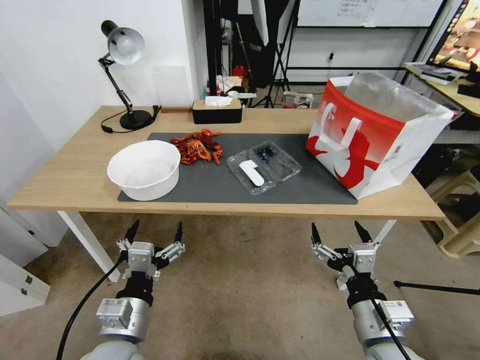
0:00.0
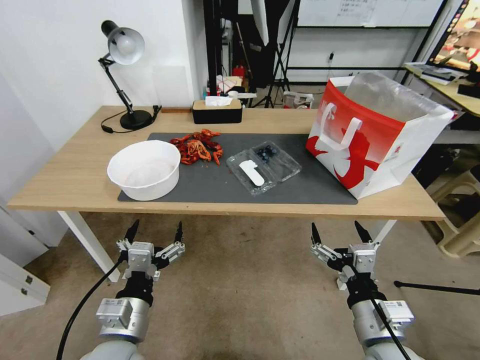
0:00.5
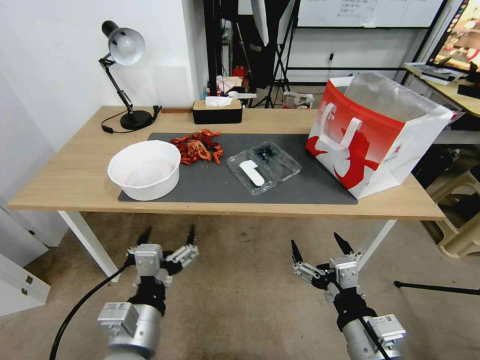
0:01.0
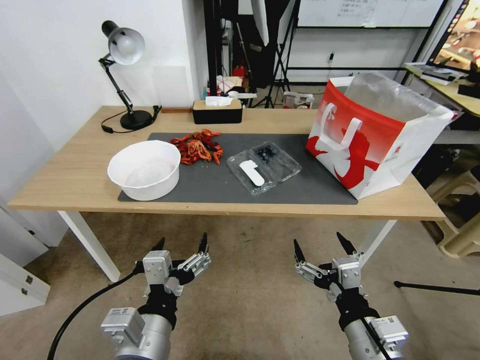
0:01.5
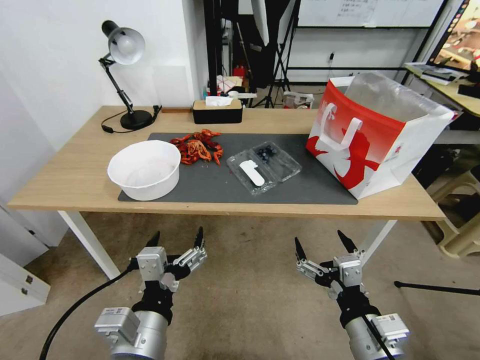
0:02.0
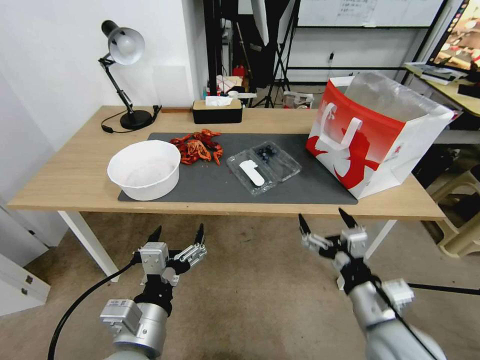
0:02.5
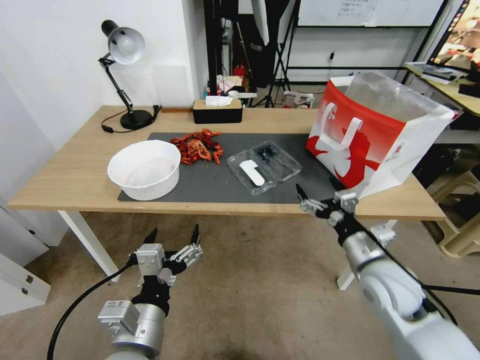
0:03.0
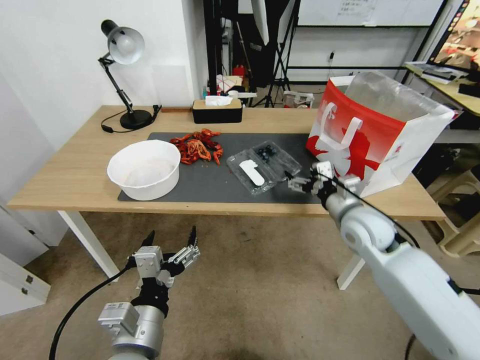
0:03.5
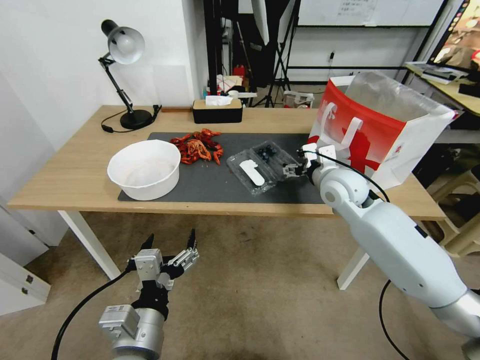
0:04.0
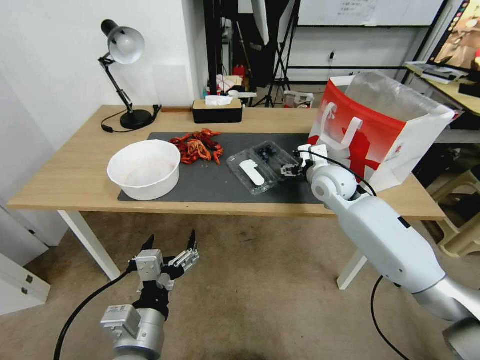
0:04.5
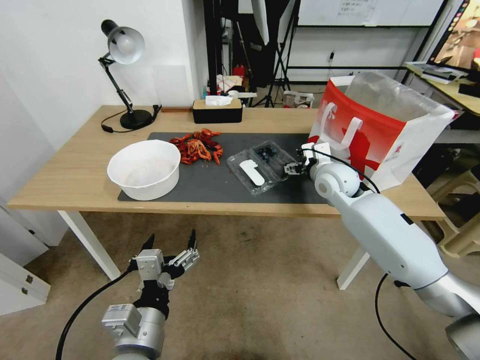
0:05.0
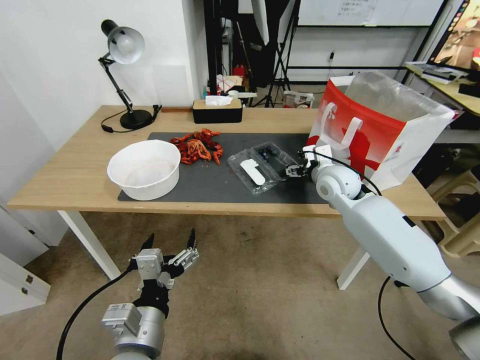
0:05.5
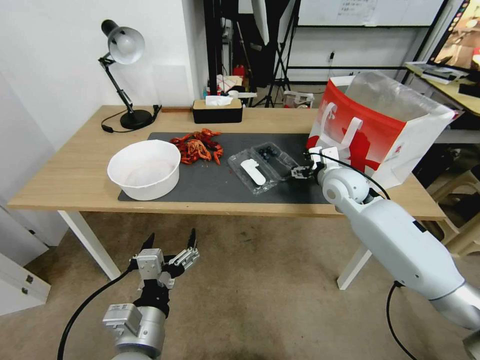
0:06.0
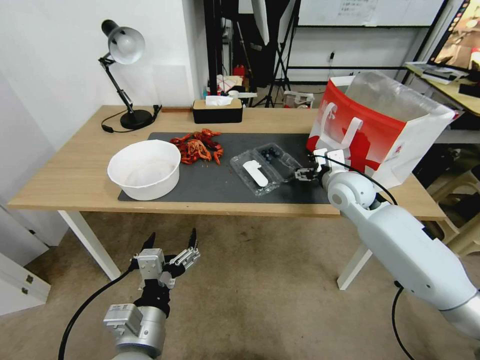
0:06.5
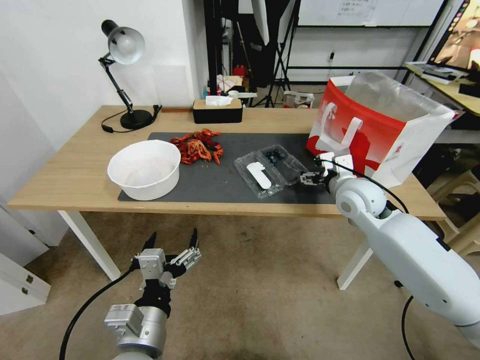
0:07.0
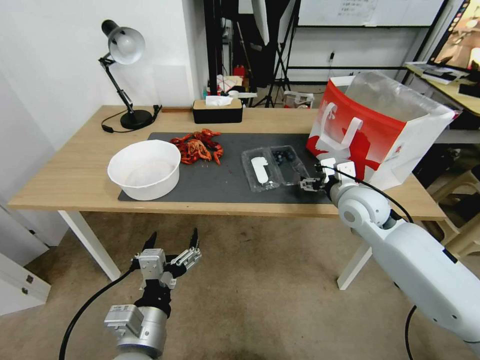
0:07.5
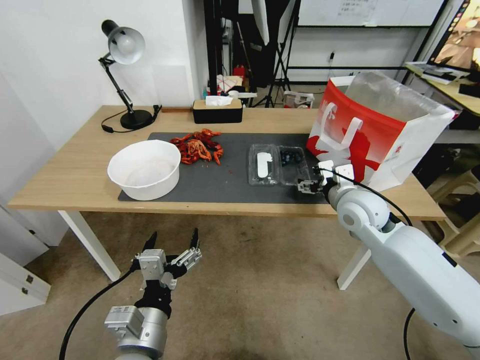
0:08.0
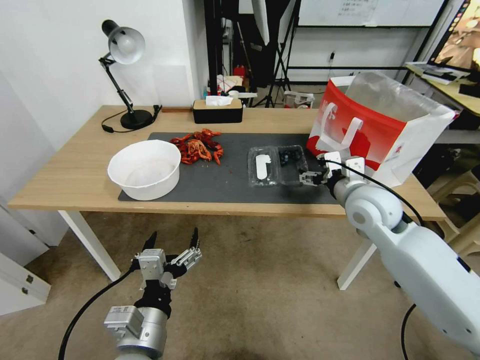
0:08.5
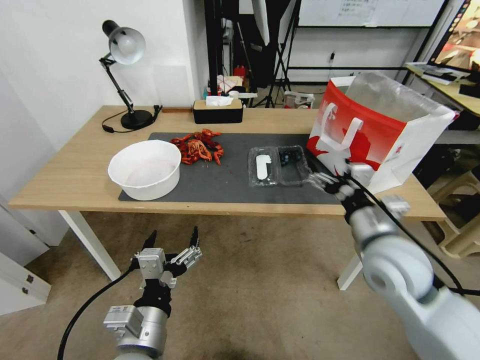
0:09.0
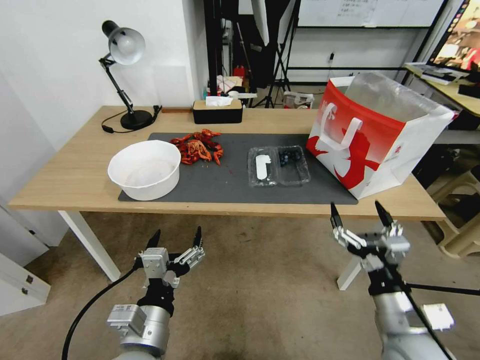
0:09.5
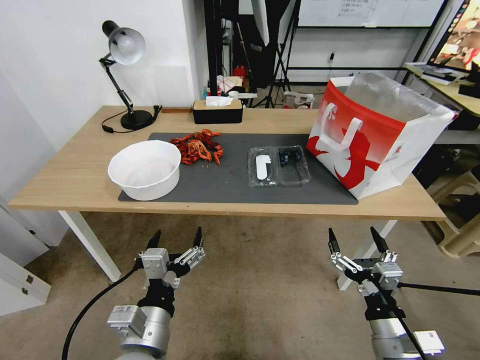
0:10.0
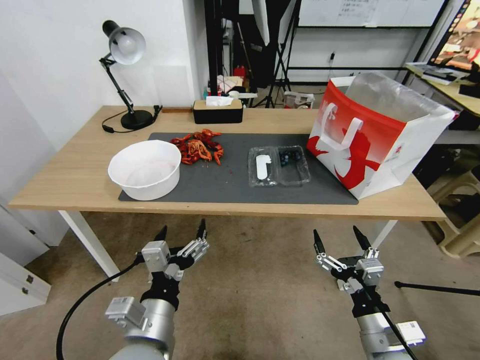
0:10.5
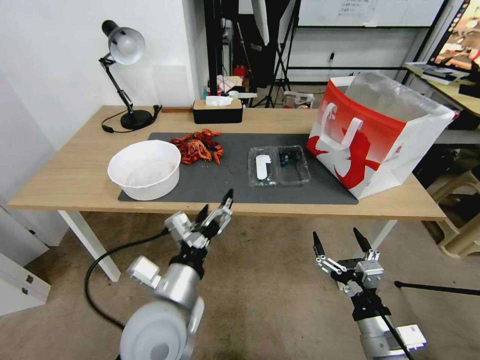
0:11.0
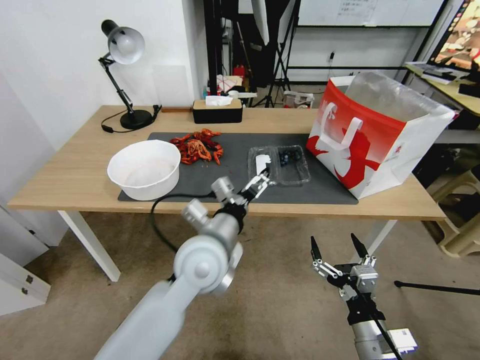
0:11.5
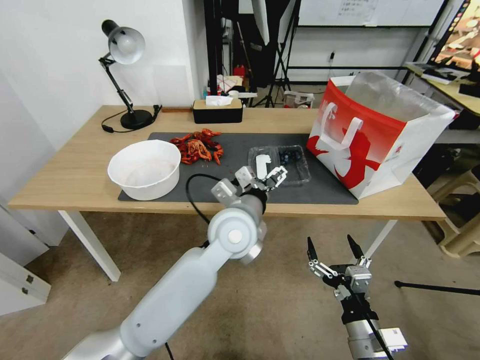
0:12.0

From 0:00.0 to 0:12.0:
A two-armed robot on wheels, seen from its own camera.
Task of the whole recording: Close the takeout container lid, then place the container into the takeout bag.
From 0:02.0 to 0:04.0: The right gripper goes about 35 cm forward.
From 0:04.0 to 0:06.0: The grippers stay close to where they were, moving slightly.
From 0:06.0 to 0:08.0: The right gripper goes about 10 cm backward.
From 0:08.0 to 0:10.0: The right gripper heads backward and downward, covering roughly 30 cm.
From 0:10.0 to 0:12.0: The left gripper goes approximately 25 cm forward and to the right.

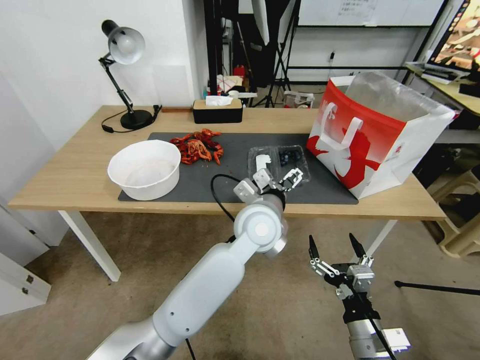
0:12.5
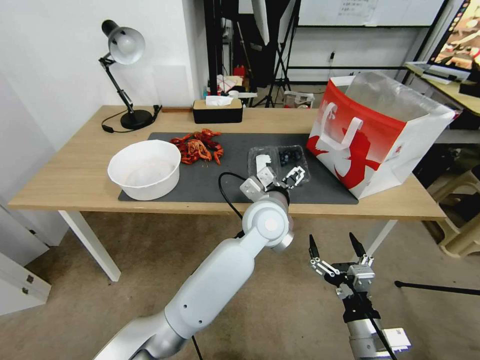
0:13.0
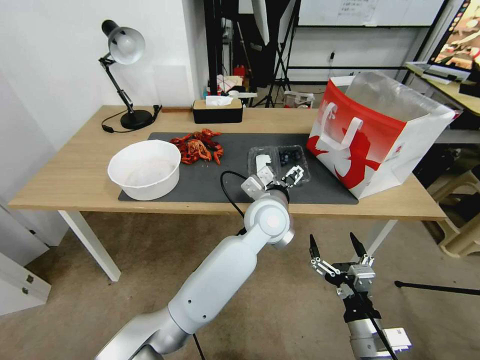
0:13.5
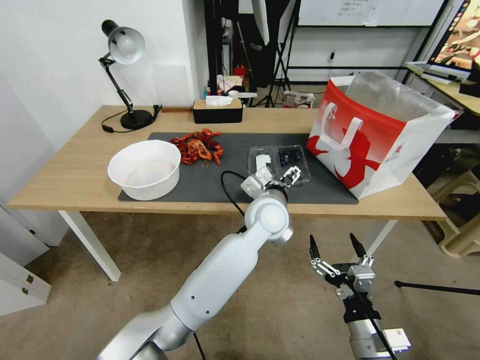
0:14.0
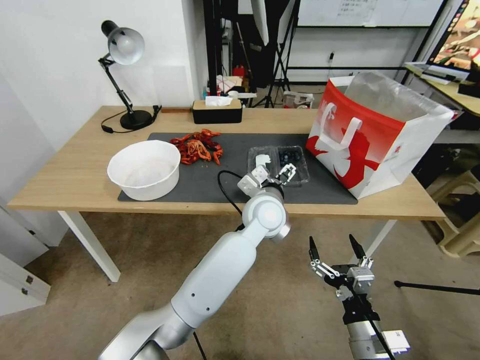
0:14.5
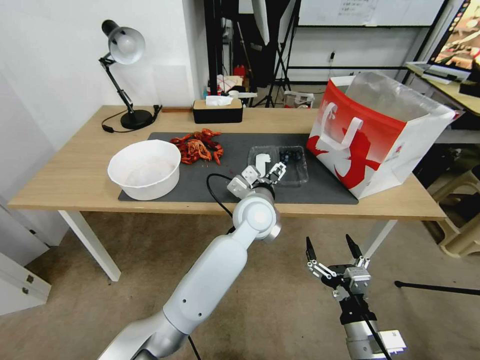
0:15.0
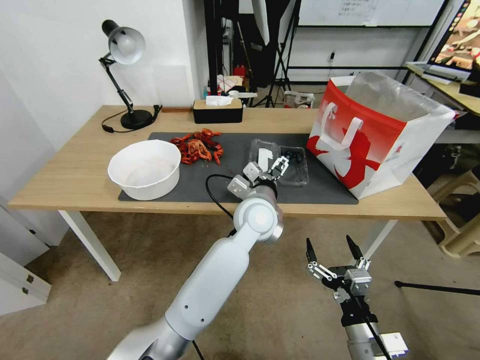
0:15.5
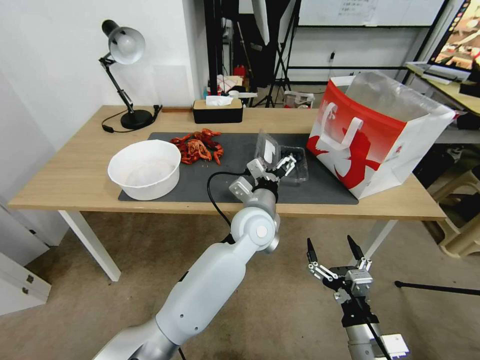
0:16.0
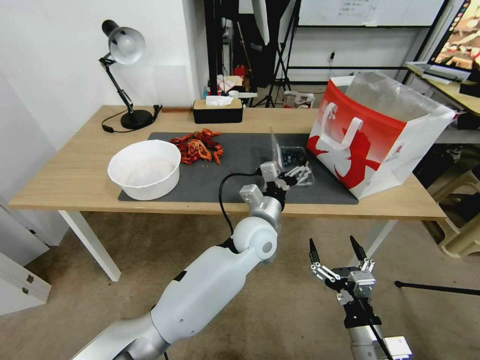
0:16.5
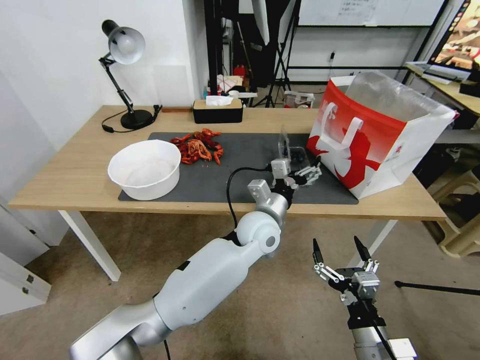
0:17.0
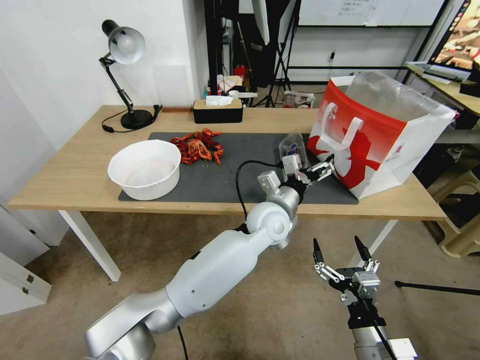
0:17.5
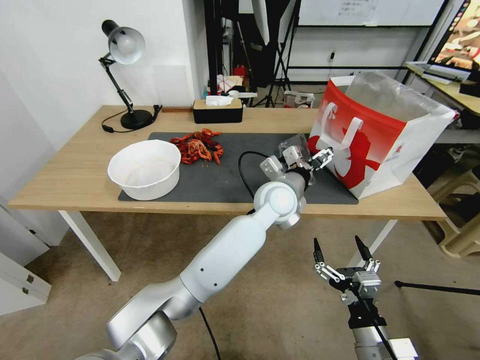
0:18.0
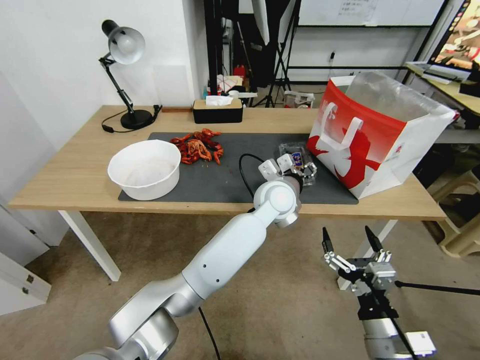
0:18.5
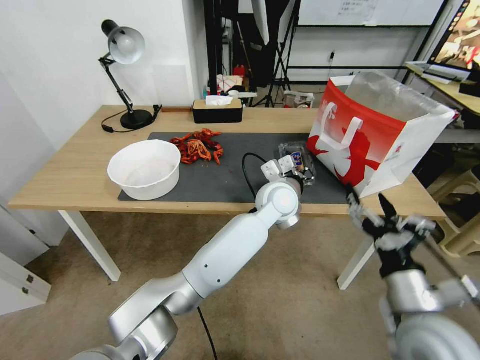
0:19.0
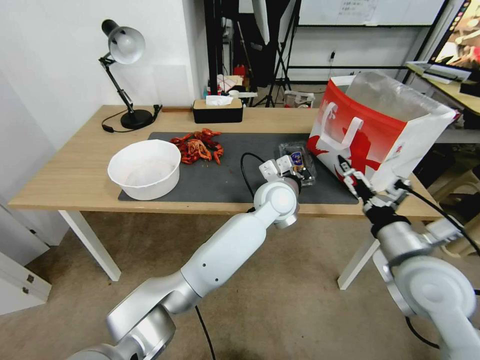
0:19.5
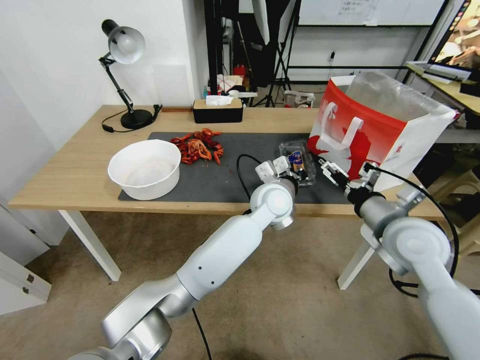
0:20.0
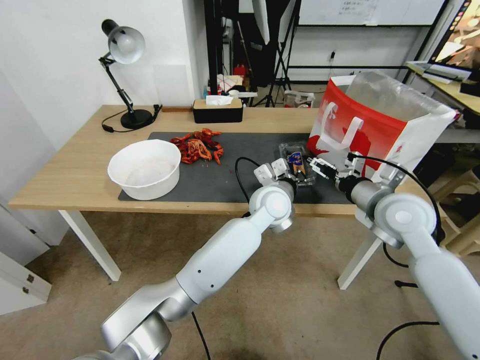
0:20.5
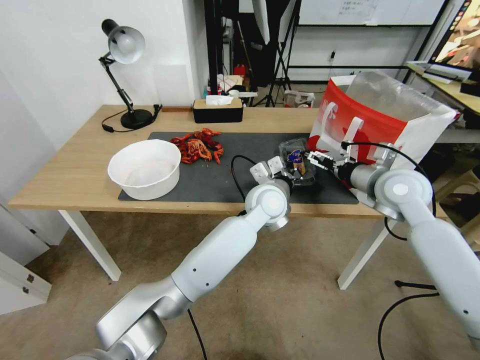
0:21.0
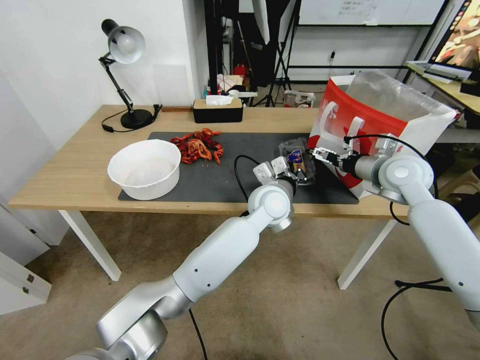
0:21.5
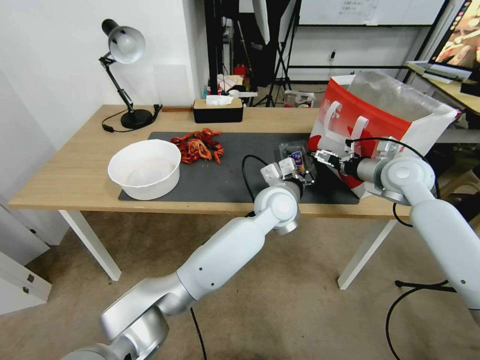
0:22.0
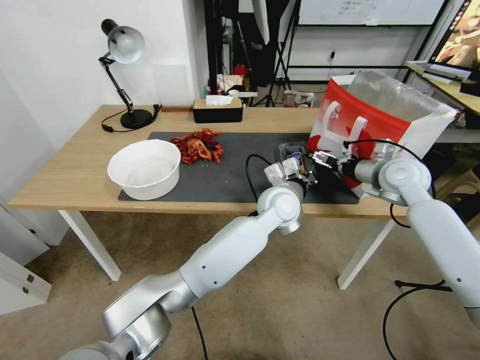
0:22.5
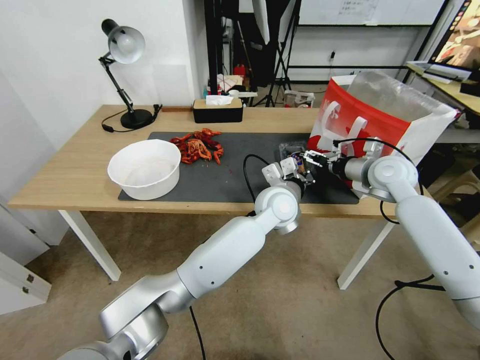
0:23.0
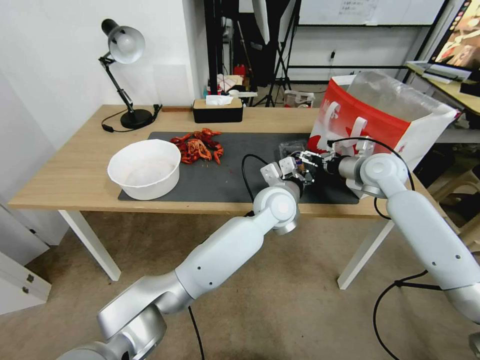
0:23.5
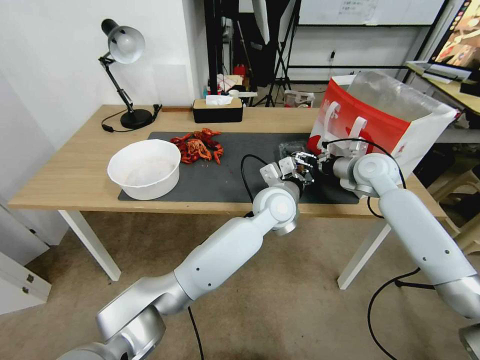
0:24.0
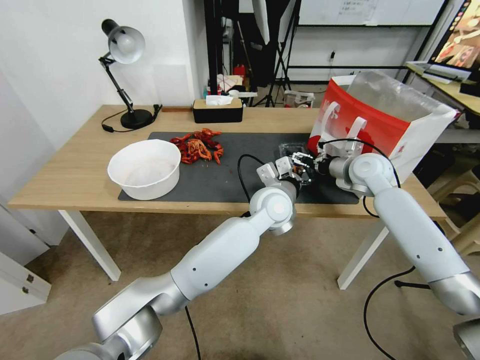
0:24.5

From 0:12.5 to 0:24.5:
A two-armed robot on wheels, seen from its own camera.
Task of the whole recording: Close the takeout container lid, then place the container into the takeout bag.
From 0:12.5 to 0:14.5: The left gripper moves roughly 5 cm.
From 0:14.5 to 0:16.5: The left gripper changes place by about 5 cm.
From 0:16.5 to 0:18.5: The left gripper moves forward and upward, approximately 10 cm, and closes.
From 0:18.5 to 0:20.5: The left gripper closes its fingers. The right gripper goes approximately 30 cm forward and upward.
From 0:20.5 to 0:22.5: The right gripper is displaced forward and to the right by approximately 15 cm.
From 0:22.5 to 0:24.5: The right gripper ends up approximately 5 cm from where it was.

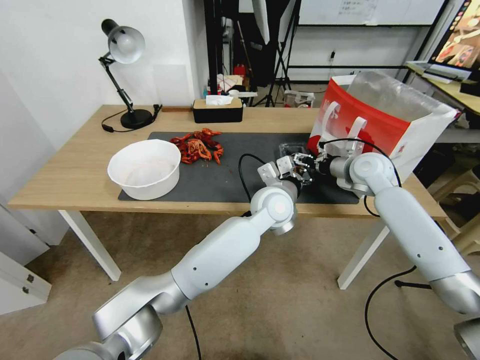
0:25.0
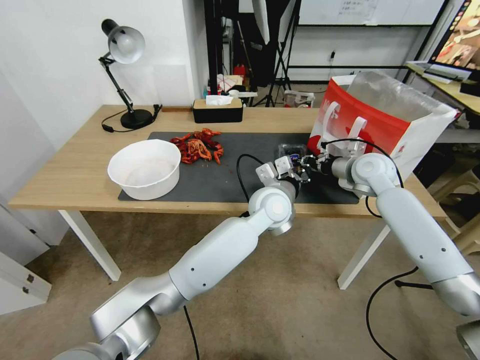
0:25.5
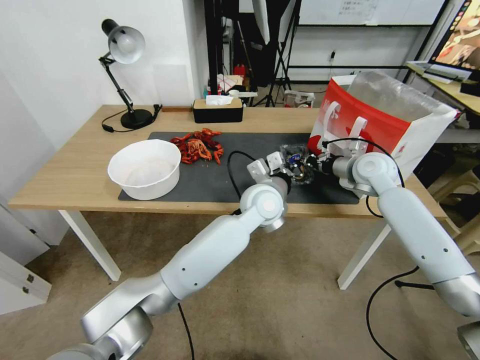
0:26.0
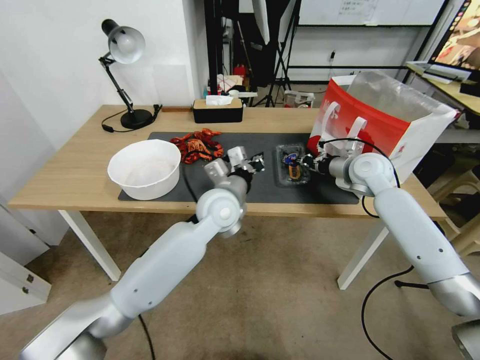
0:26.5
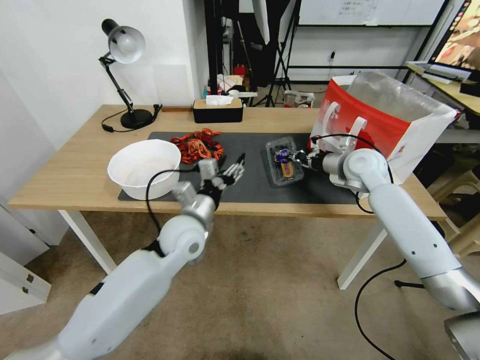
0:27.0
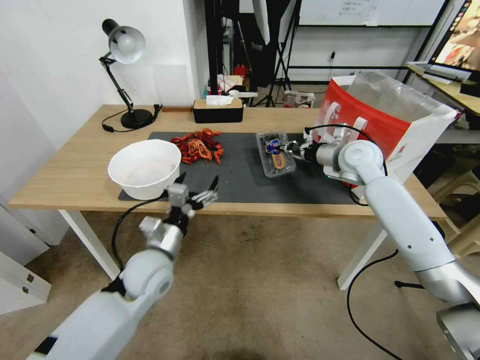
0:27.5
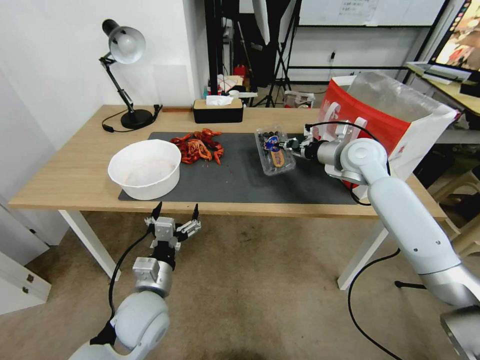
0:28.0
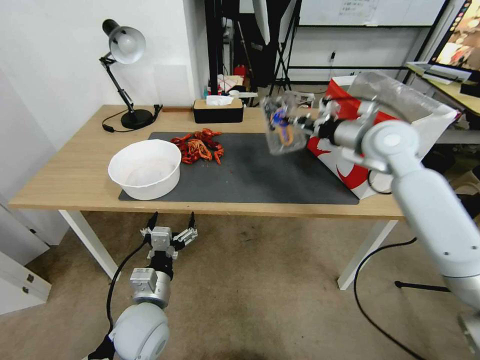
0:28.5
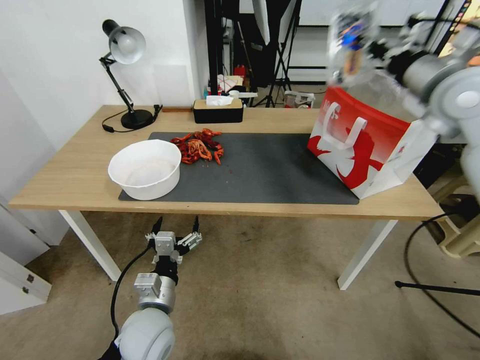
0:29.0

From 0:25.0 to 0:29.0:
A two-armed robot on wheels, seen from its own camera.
Task of the whole recording: Close the takeout container lid, then place the container into the takeout bag.
From 0:25.0 to 0:27.0: The left gripper heads to the left, covering some 20 cm, and opens. The right gripper closes its fingers.
From 0:27.0 to 0:29.0: The left gripper shifts about 20 cm backward and downward, and opens up. Meanwhile the right gripper moves upward, roughly 20 cm.
